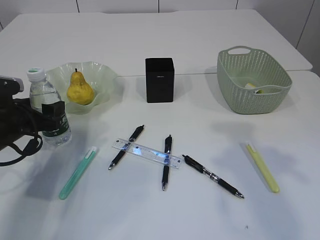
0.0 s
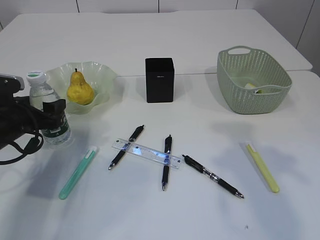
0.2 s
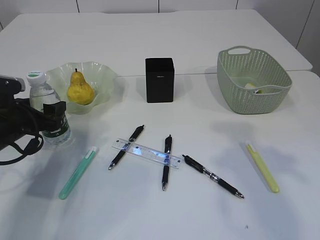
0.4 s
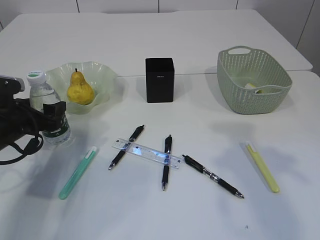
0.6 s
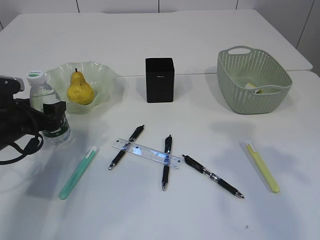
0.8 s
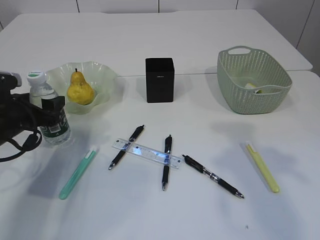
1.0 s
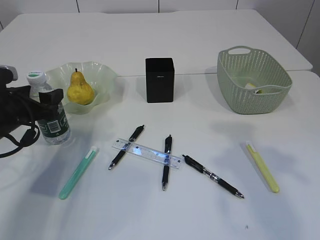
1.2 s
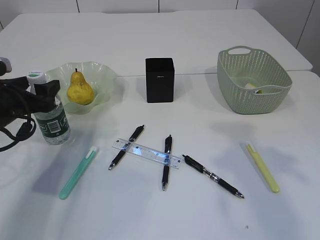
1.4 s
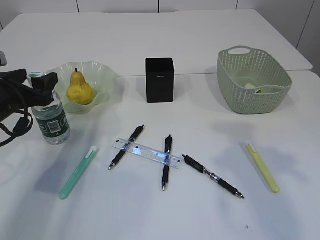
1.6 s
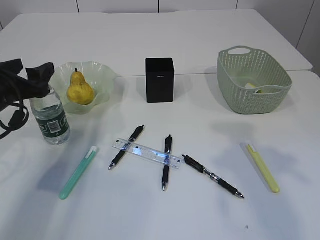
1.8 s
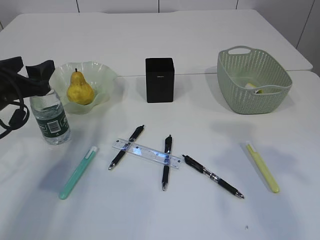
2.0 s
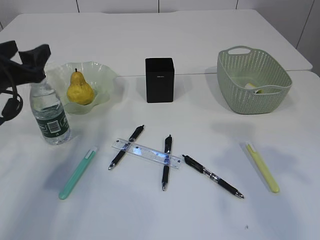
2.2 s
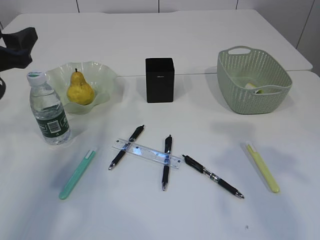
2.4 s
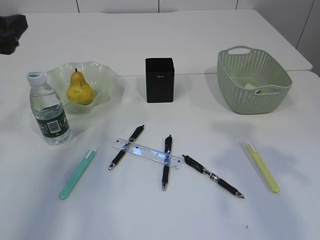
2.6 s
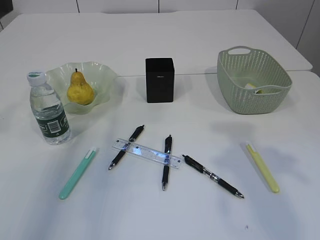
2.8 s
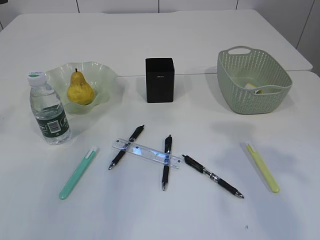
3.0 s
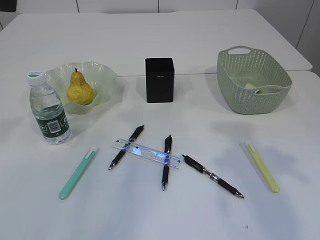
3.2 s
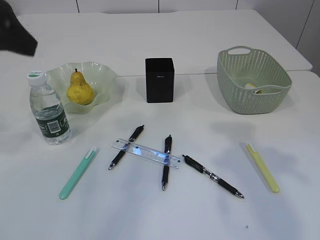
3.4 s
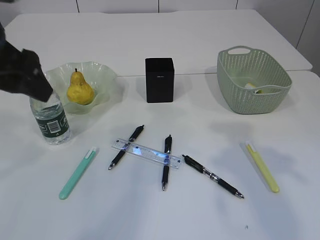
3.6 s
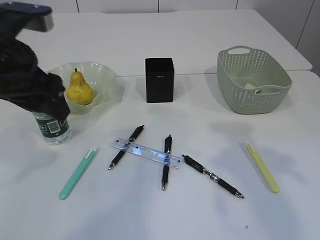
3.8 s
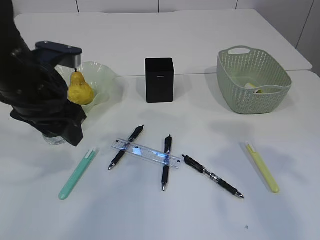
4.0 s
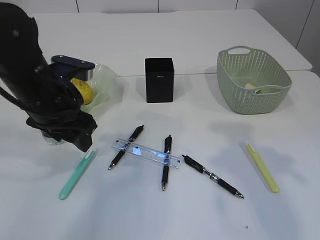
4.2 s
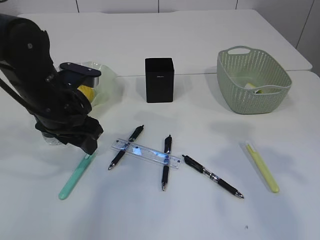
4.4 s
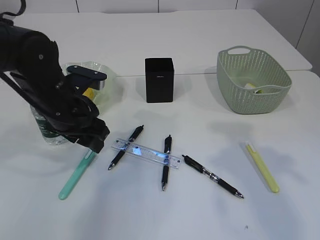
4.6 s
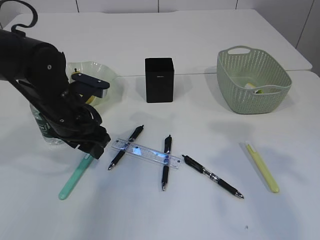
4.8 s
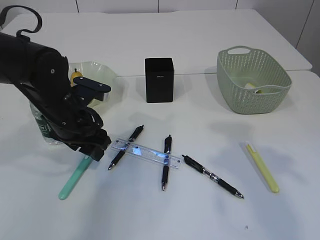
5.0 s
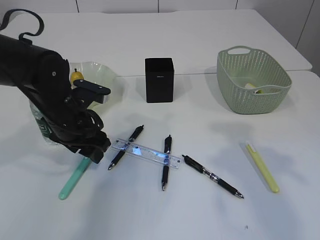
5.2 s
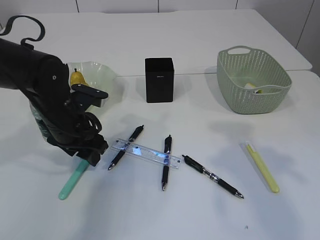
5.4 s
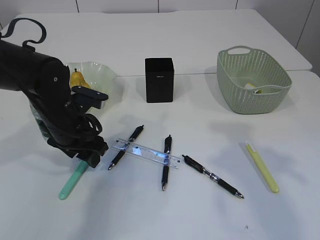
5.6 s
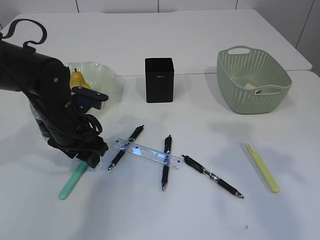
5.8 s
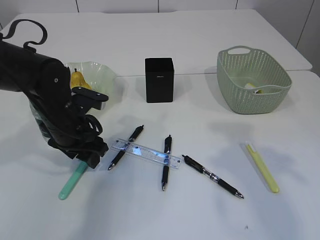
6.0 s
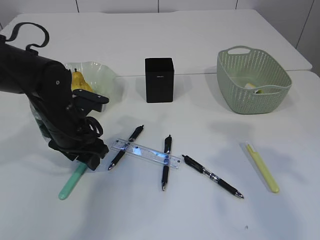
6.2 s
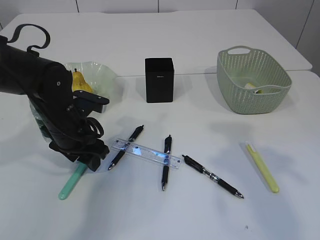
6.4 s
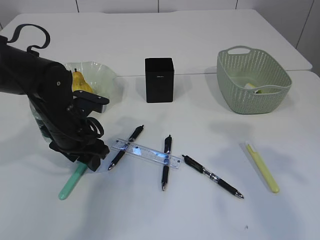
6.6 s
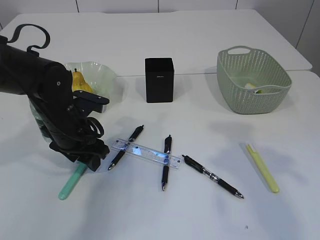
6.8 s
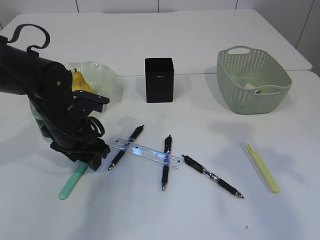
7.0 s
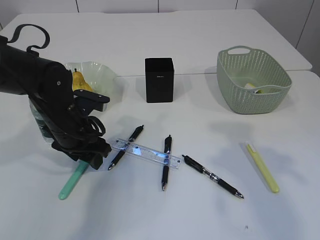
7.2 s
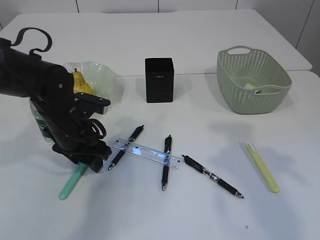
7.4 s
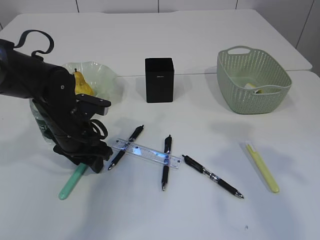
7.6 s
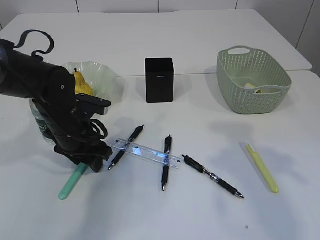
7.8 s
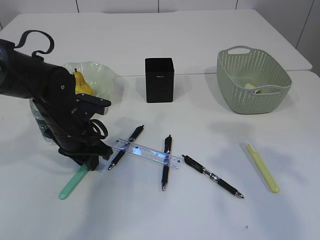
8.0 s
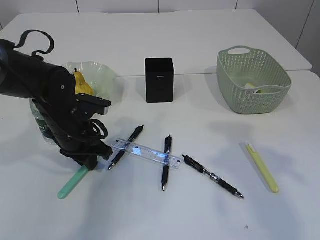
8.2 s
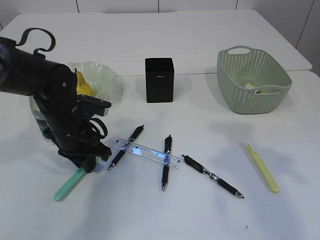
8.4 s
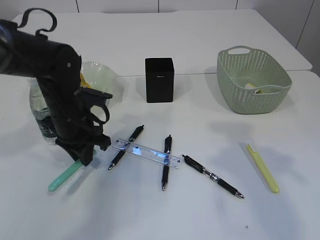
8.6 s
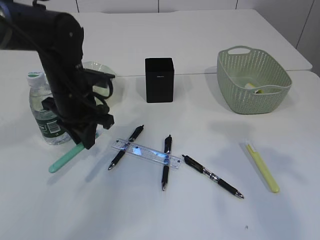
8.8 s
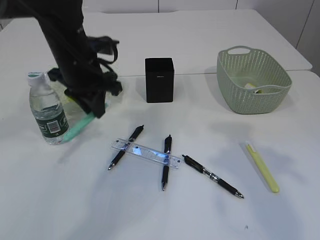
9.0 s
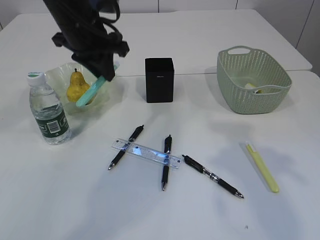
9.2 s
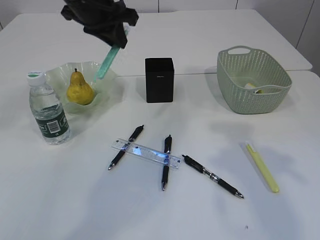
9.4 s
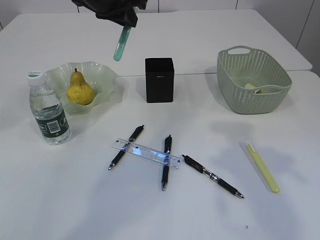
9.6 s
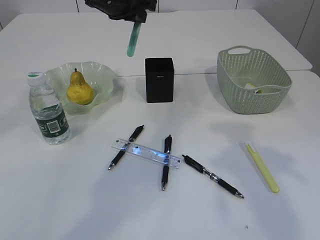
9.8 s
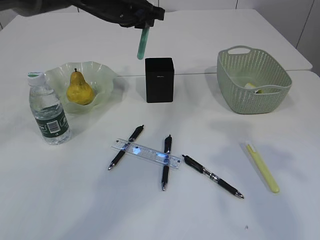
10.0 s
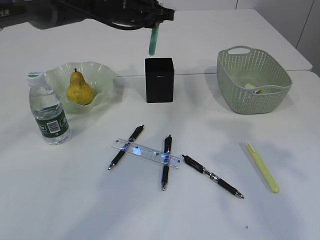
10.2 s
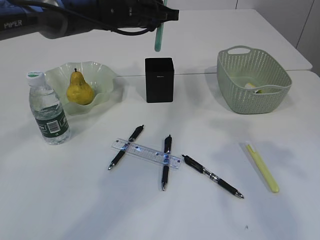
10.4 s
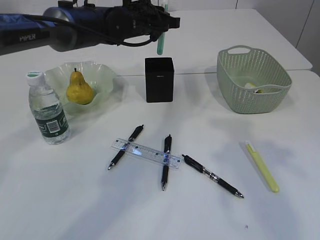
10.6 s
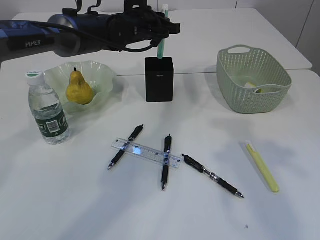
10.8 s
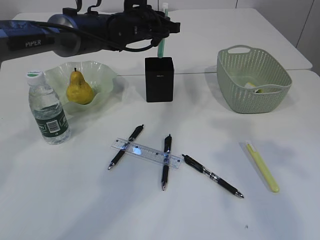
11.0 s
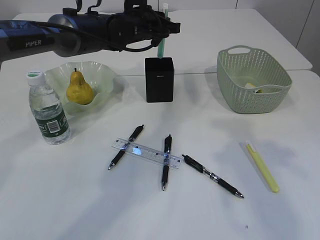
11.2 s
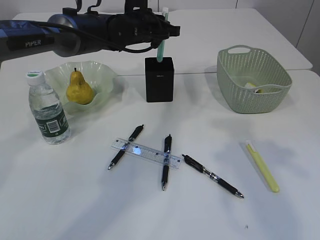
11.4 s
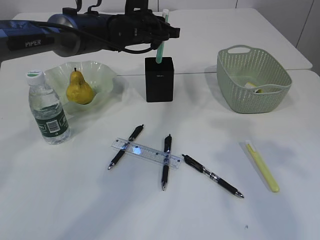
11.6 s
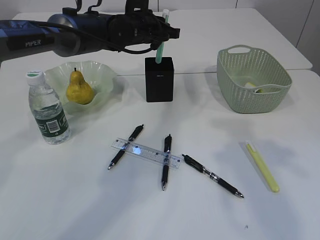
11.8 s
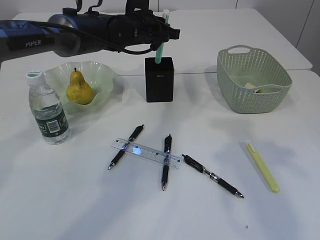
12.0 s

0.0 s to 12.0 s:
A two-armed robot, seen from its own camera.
Step, 0.0 to 2.2 s: Place the bottle.
Step, 2.4 to 9.0 s: pick up the blue knife.
0.0 to 1.6 s: The grippers stay close to where they were, moving slightly.
1.6 to 3.0 s: The left gripper heads upward, covering roughly 20 cm.
3.0 to 4.4 s: The left gripper heads downward and to the right, covering approximately 20 cm.
4.4 to 6.0 s: The left gripper goes roughly 5 cm downward.
6.0 to 7.6 s: The grippers stay close to where they were, moving slightly.
7.6 to 9.0 s: The left gripper goes some 10 cm upward, and closes up.
9.0 to 10.4 s: The left gripper shifts about 15 cm forward and to the right.
10.4 to 12.0 s: The grippers move only a little.

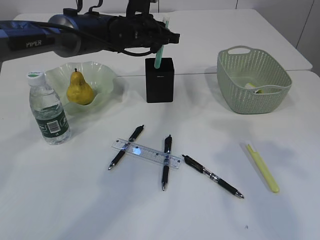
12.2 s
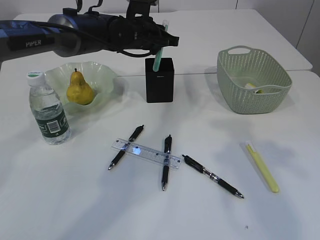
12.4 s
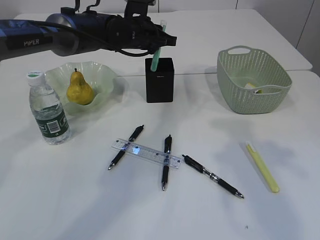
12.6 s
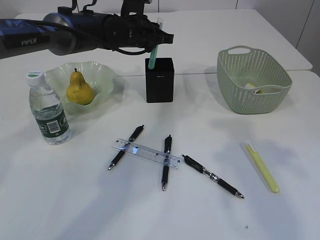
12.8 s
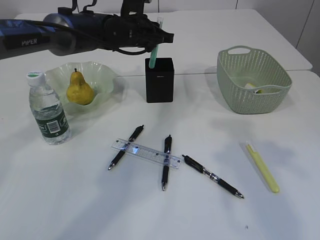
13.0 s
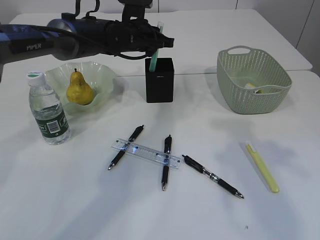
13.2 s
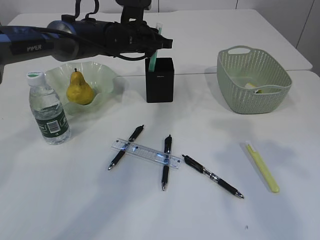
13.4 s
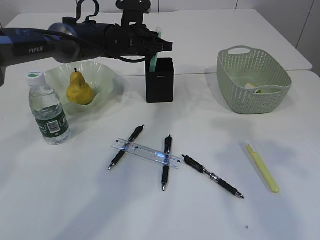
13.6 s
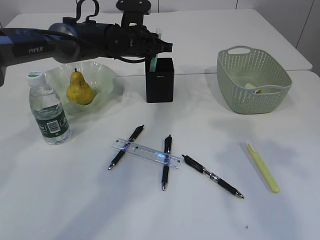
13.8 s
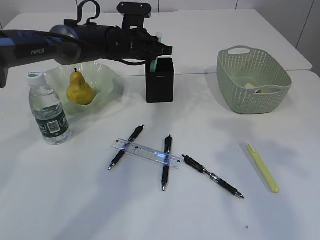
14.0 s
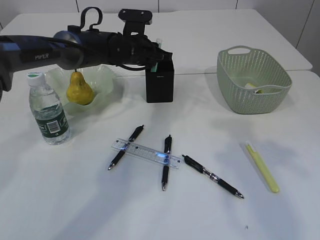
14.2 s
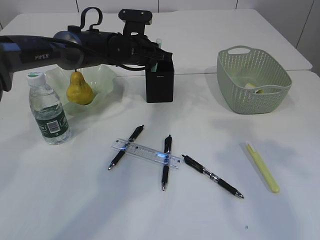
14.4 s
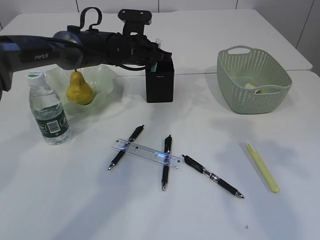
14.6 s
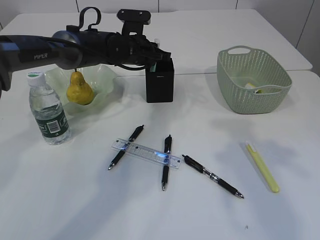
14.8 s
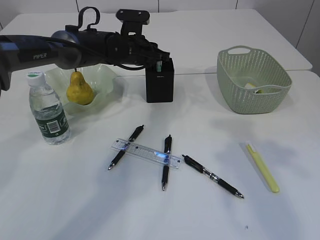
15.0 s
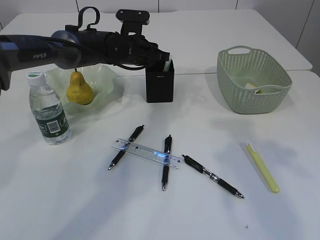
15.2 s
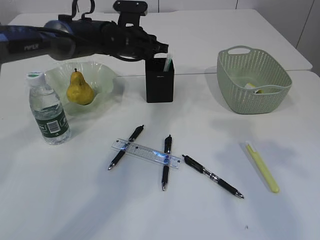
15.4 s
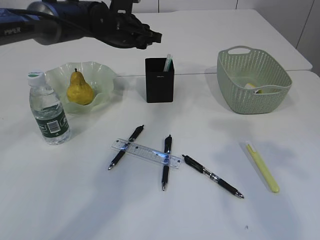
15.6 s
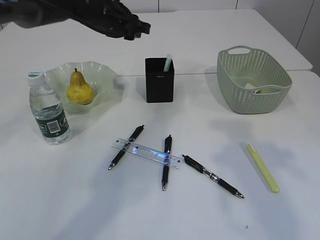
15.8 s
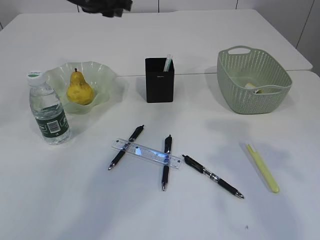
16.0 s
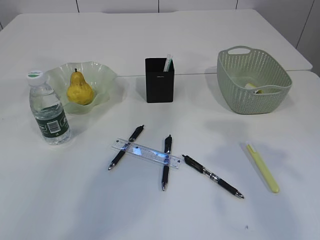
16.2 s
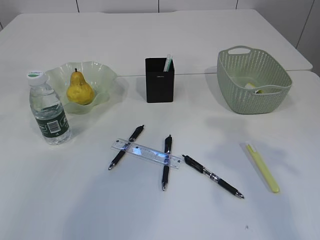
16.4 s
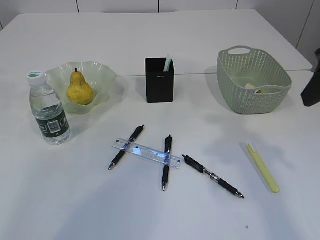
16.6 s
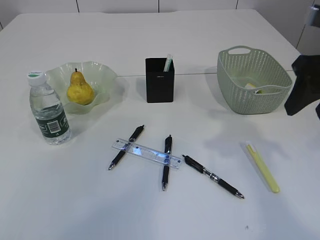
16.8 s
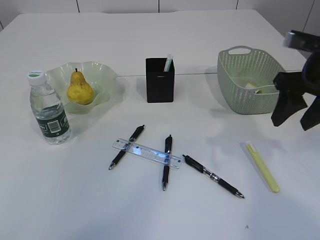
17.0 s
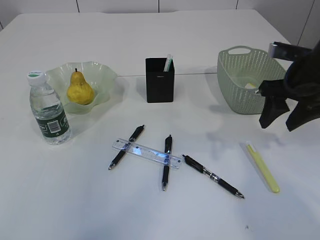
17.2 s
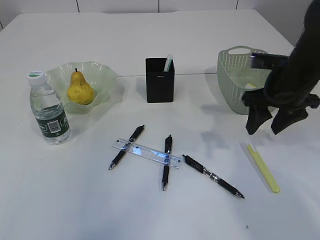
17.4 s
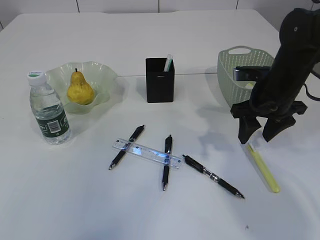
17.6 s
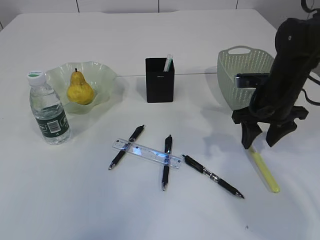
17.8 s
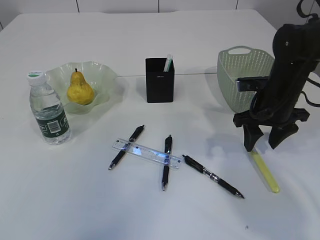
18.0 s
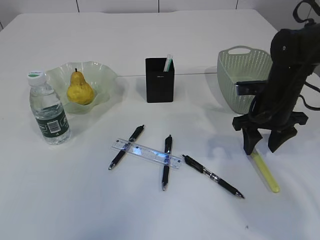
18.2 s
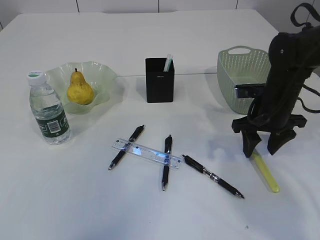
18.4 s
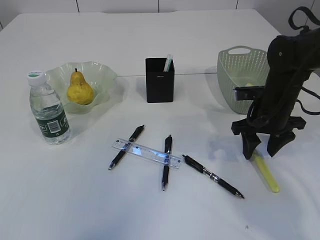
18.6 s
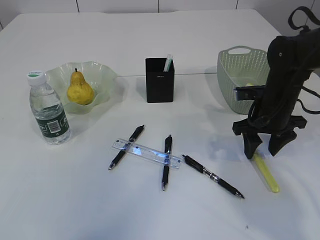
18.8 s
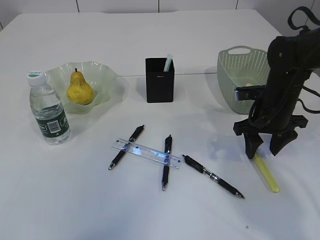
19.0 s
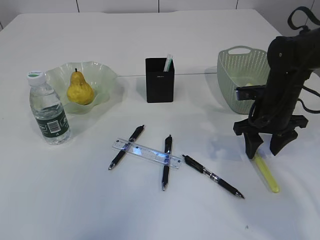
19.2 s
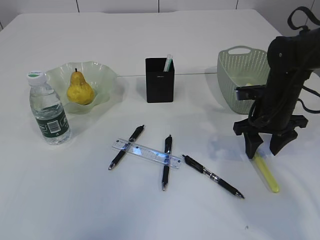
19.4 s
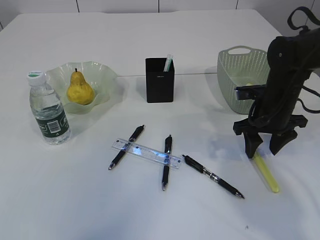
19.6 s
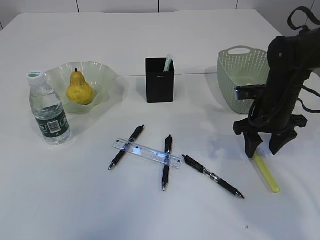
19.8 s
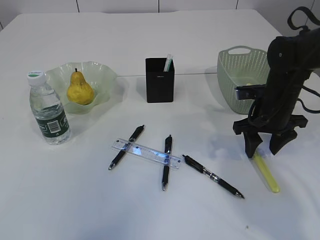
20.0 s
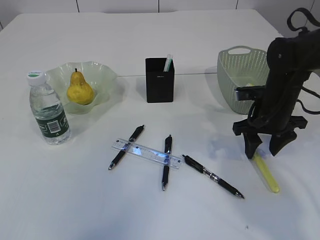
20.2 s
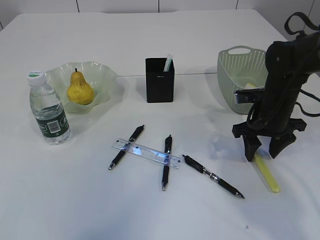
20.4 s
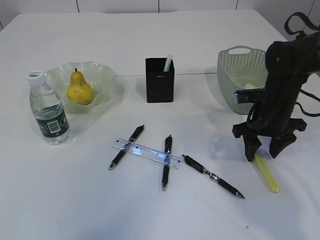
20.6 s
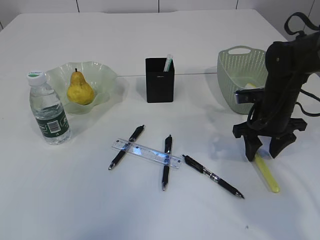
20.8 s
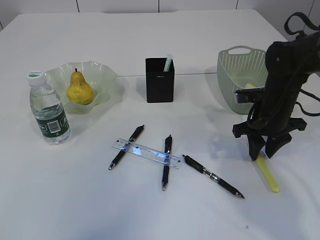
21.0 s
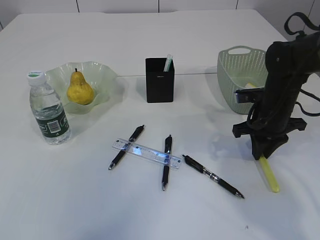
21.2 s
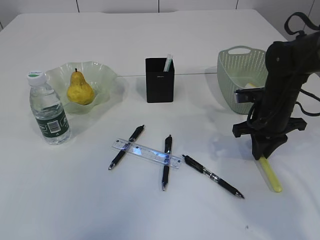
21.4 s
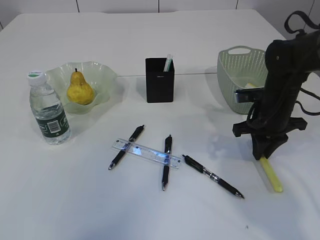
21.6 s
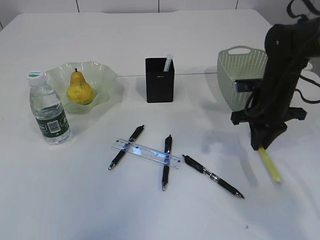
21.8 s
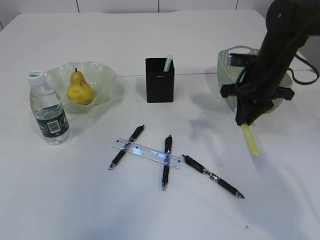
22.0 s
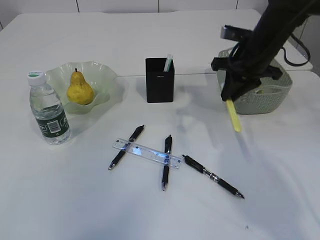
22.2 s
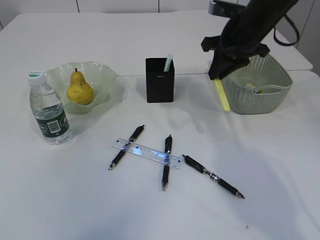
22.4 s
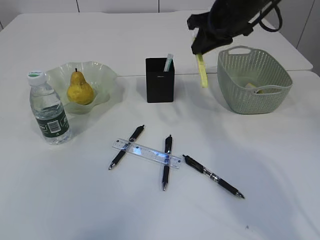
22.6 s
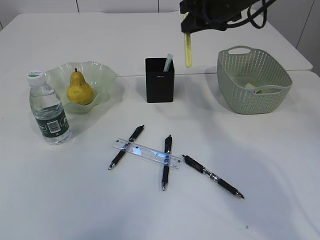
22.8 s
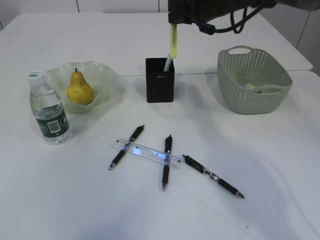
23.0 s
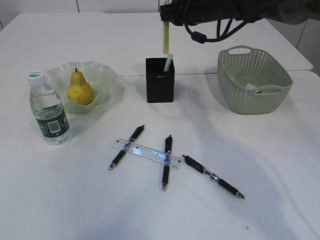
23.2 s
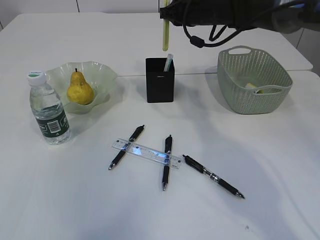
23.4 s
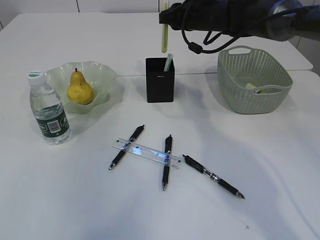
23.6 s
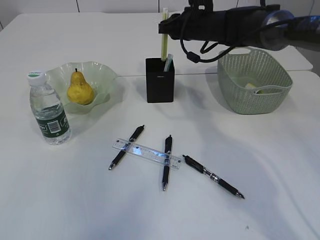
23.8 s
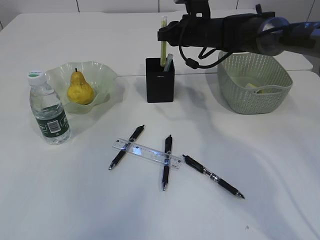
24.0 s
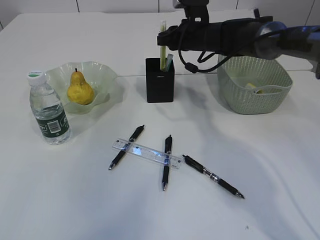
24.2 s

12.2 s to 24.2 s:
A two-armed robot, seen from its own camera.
Step, 12.2 to 15.6 s: Place the blue knife into the pen holder.
Step, 15.8 to 22.0 s: pick up the yellow knife.
12.2 to 15.2 s: The grippers make only small movements.
15.2 to 16.6 s: The right gripper moves some 5 cm, while the left gripper shifts approximately 35 cm upward, backward and to the left.
16.6 to 18.2 s: The left gripper shifts about 15 cm backward and upward. Meanwhile the right gripper travels downward and forward by about 25 cm.
18.2 to 19.8 s: The two grippers keep their place.
19.8 to 21.2 s: The right gripper closes up.
21.2 to 22.6 s: The right gripper shifts about 20 cm upward, forward and to the left.
22.6 to 24.2 s: The right gripper shifts about 10 cm downward and forward.
